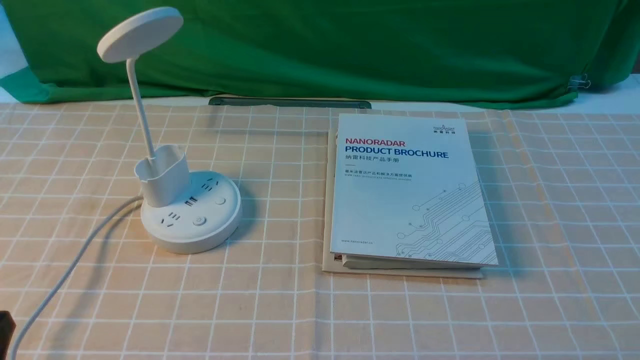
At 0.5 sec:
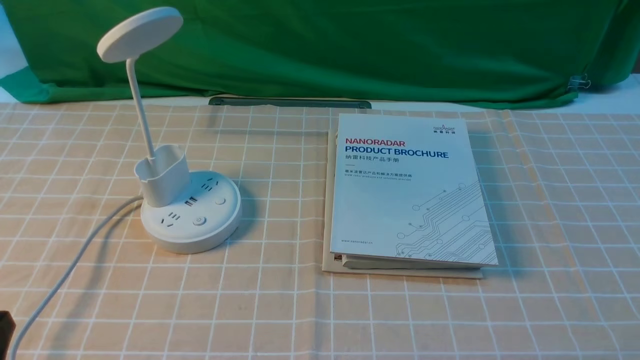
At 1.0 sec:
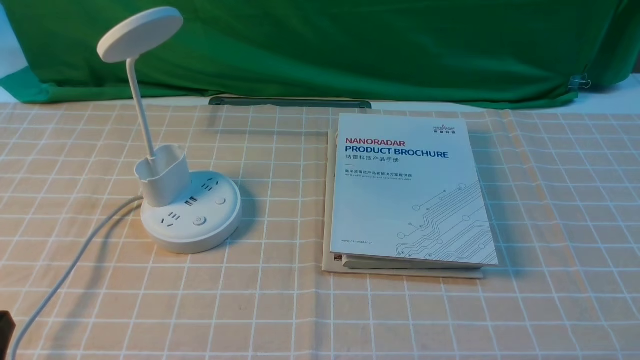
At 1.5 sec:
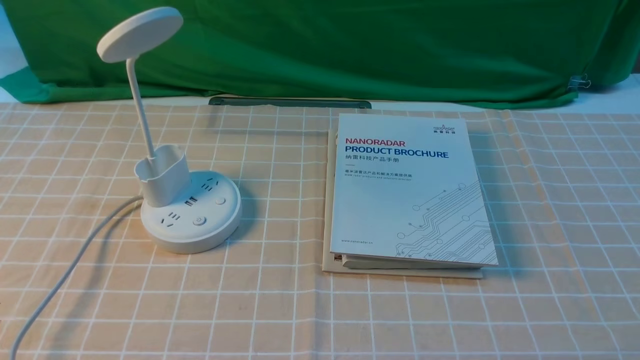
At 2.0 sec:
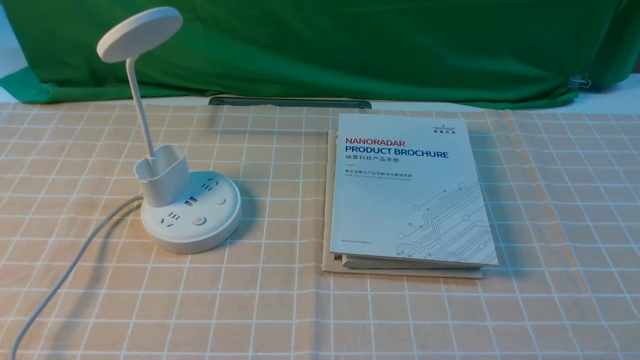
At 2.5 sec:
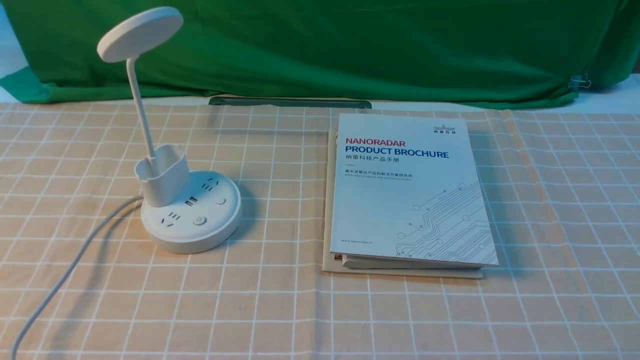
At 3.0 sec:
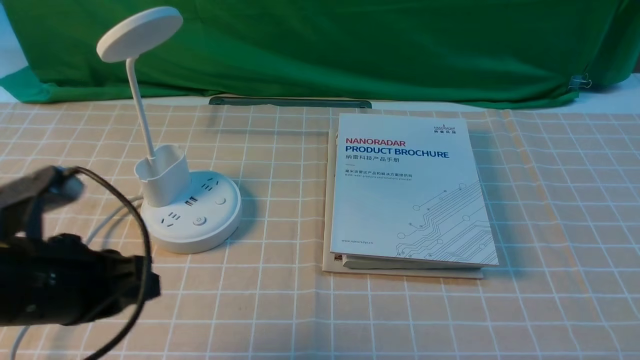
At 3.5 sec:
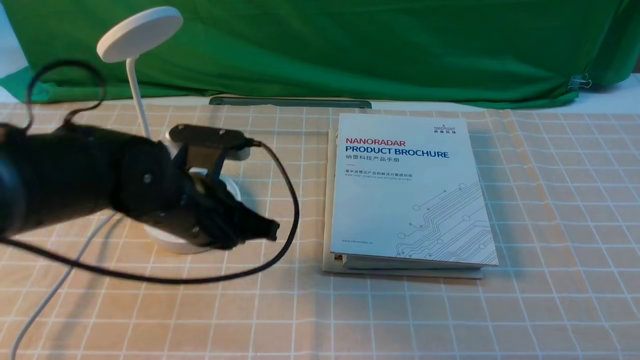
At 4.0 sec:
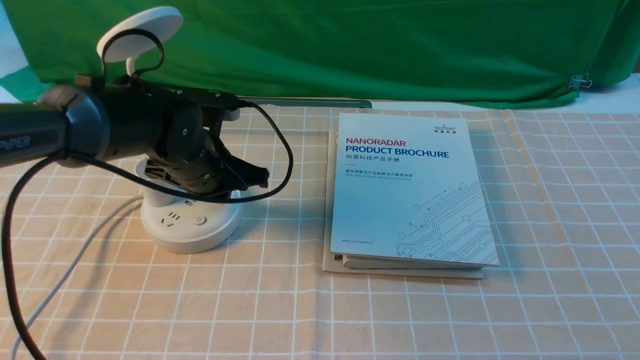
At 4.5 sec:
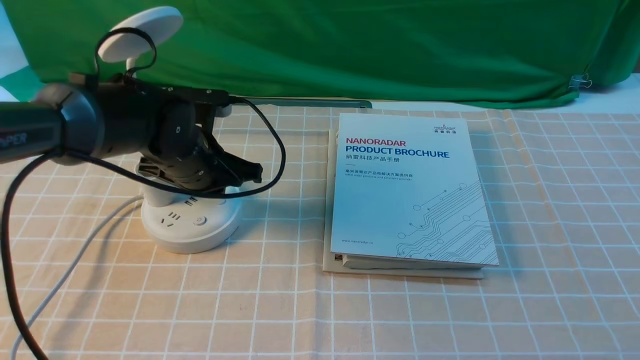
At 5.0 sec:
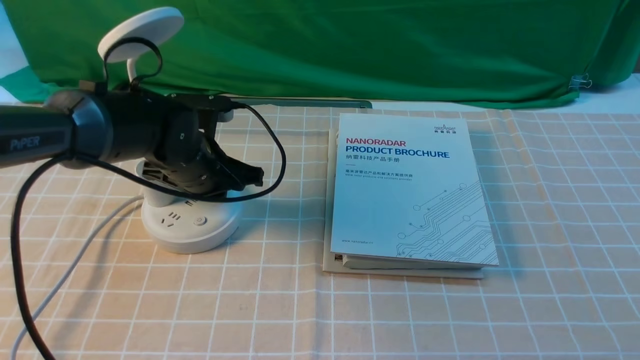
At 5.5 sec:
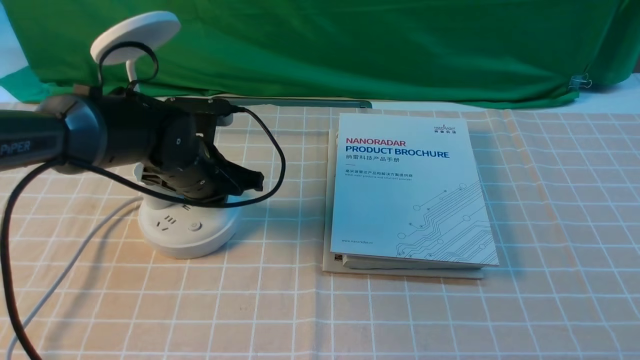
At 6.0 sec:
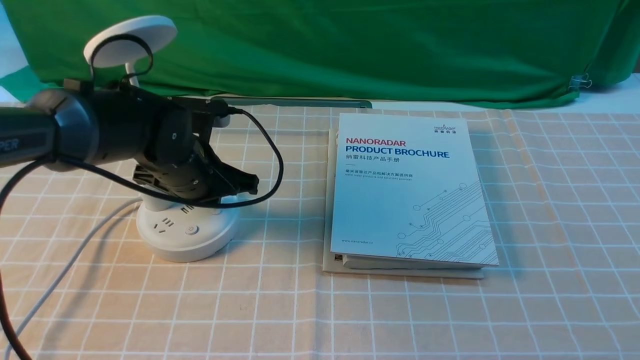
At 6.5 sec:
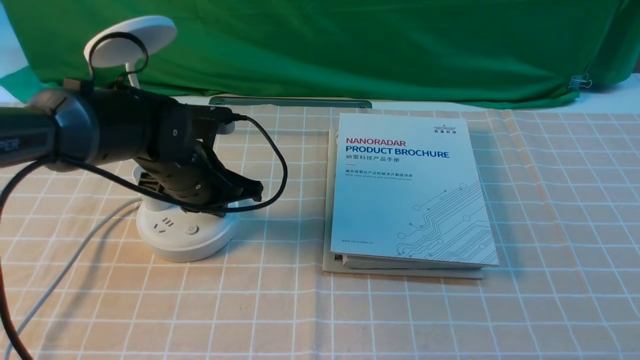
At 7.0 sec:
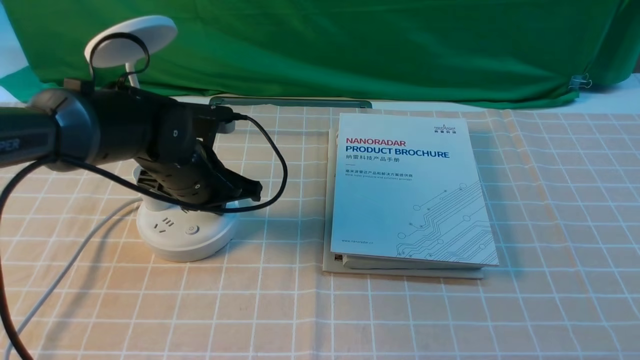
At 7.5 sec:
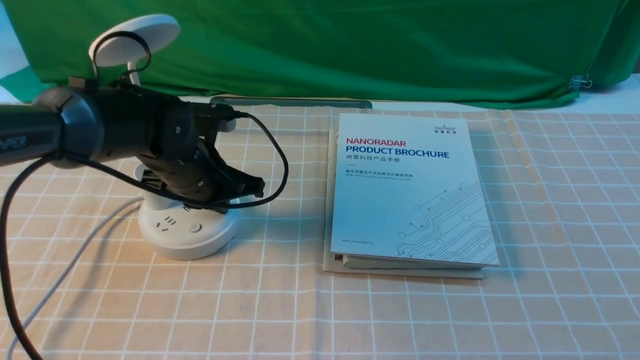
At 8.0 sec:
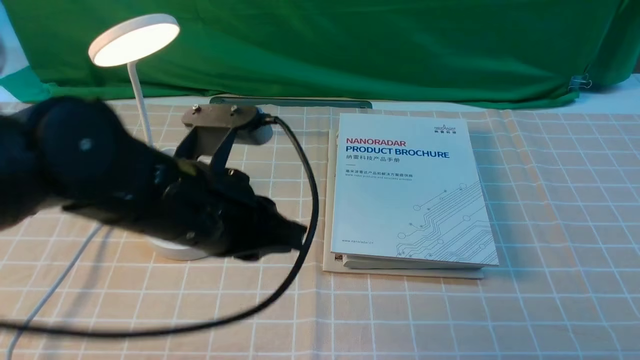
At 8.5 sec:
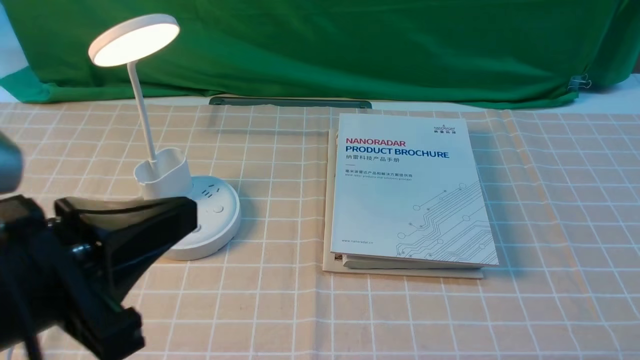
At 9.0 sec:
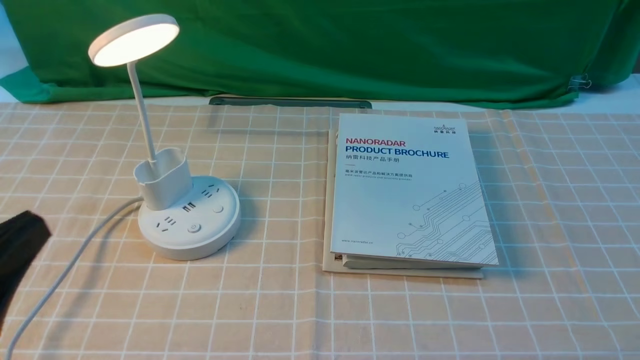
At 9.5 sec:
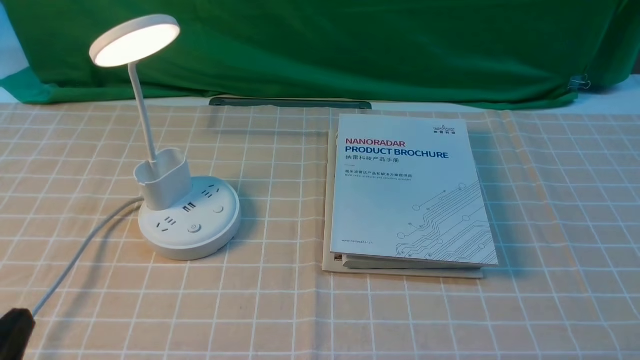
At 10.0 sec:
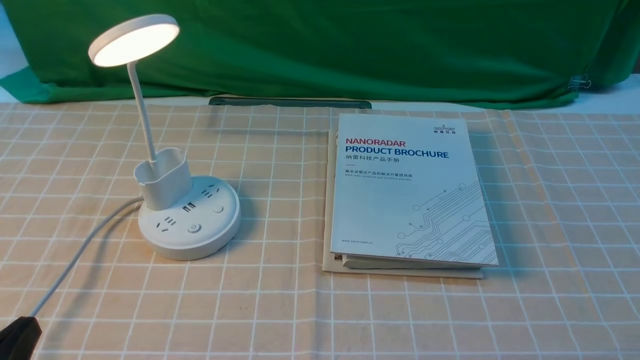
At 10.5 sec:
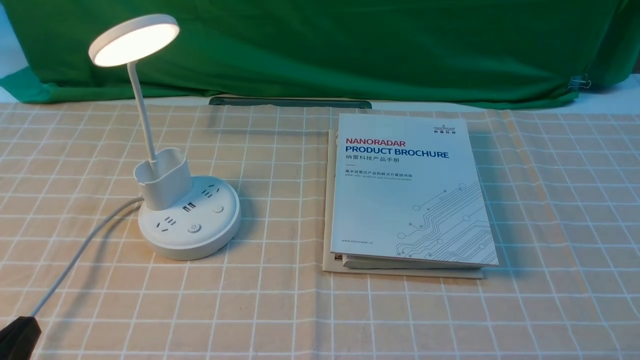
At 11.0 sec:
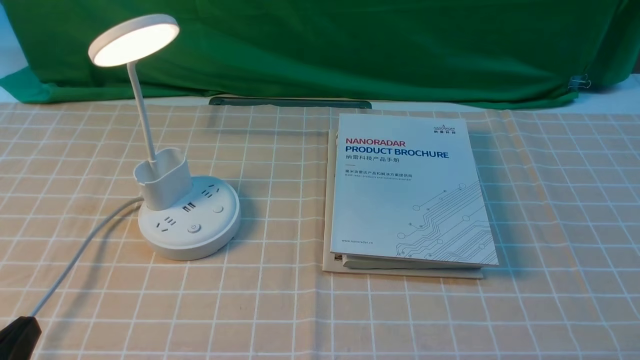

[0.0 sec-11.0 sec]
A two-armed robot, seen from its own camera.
Step, 0.0 sec to 8.0 sec: use the left arm to press the button switch on the lamp holder.
2.0 sec to 3.5 sec: The left gripper heads forward and to the right, covering about 30 cm, and closes up.
3.5 sec to 5.5 sec: The left gripper goes approximately 10 cm forward, and opens up.
5.5 sec to 7.5 sec: The grippers make only small movements.
7.5 sec to 9.0 sec: The left gripper goes roughly 30 cm backward.
9.0 sec to 11.0 sec: The left gripper heads downward, covering about 10 cm.
